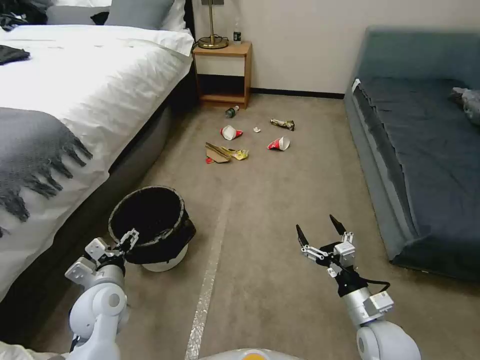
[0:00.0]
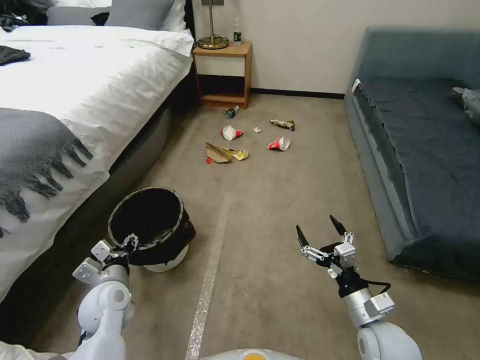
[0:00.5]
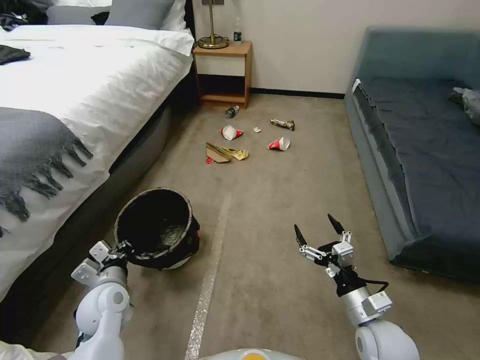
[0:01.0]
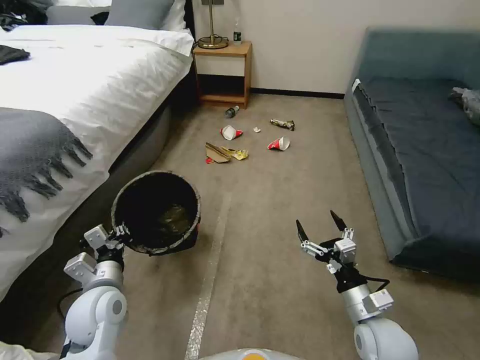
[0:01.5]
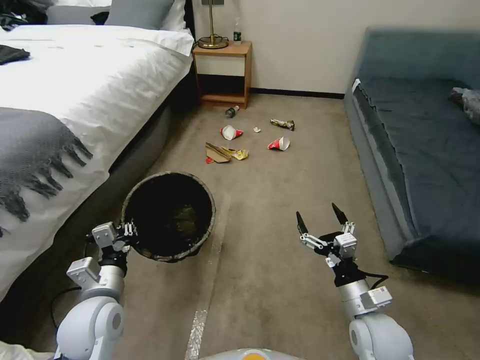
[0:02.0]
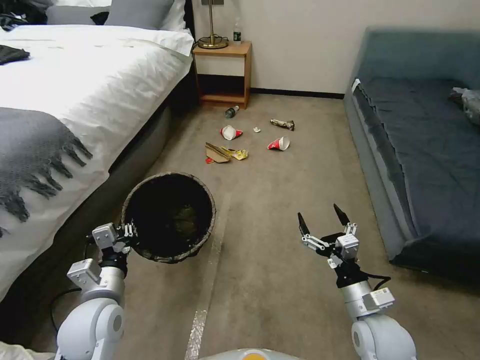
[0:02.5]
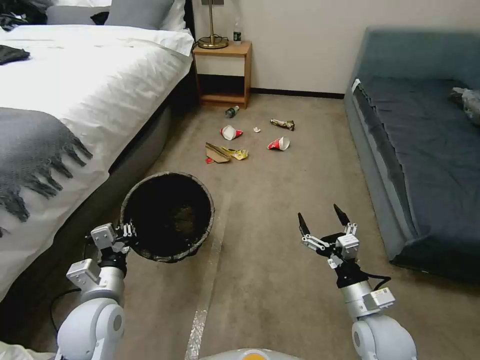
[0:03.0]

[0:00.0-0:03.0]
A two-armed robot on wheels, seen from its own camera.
Task of the whole recording: Pick up the trash can from the floor.
0:00.0 to 0:01.5: The left gripper closes up.
0:01.5 to 0:03.0: There are only small adjustments of the grippers.
